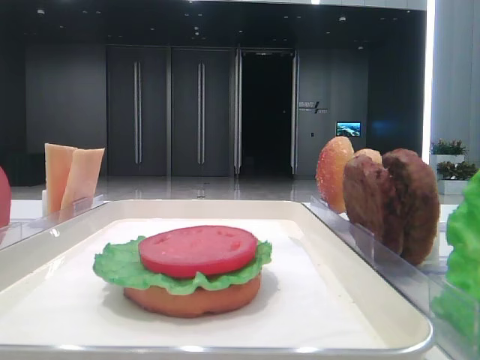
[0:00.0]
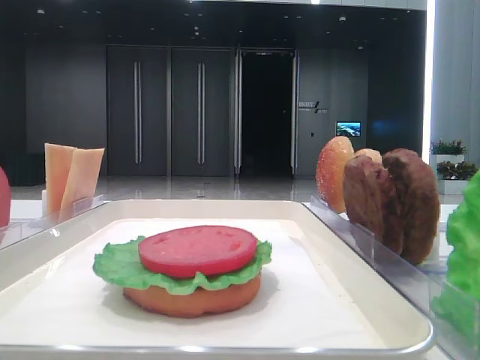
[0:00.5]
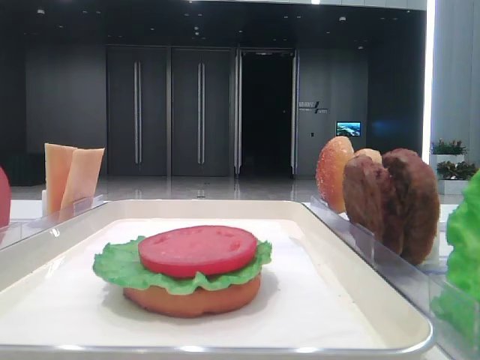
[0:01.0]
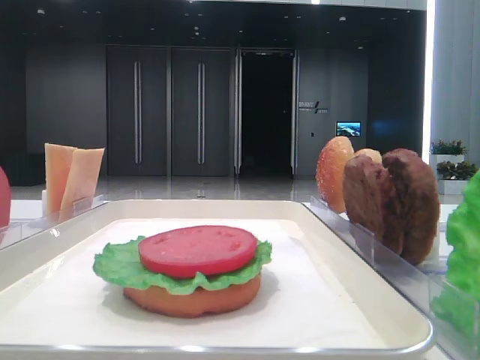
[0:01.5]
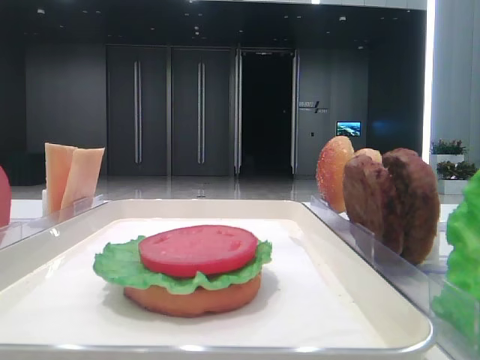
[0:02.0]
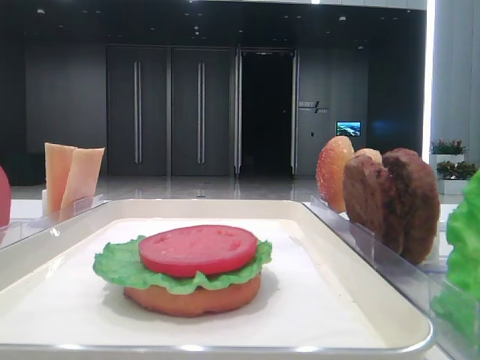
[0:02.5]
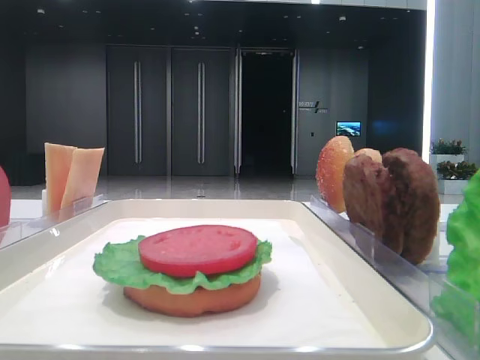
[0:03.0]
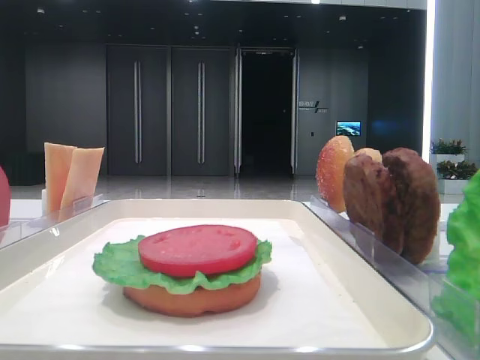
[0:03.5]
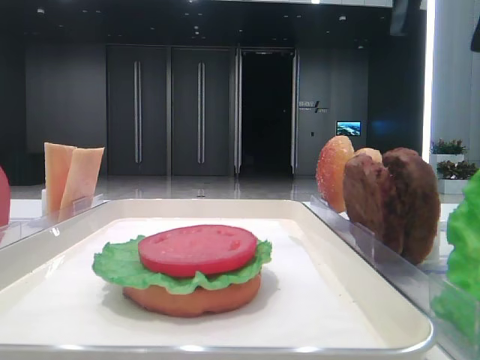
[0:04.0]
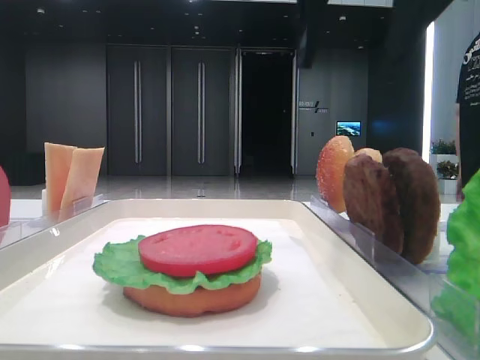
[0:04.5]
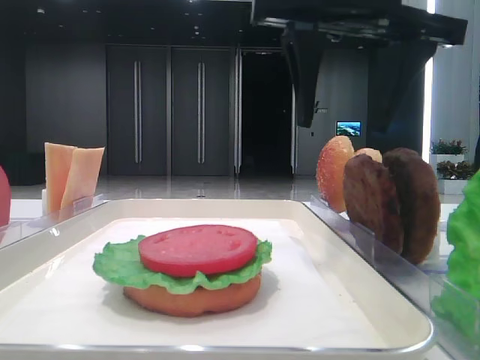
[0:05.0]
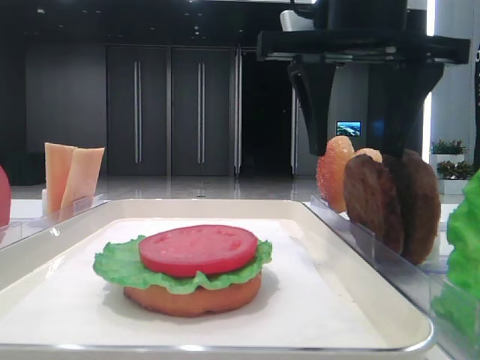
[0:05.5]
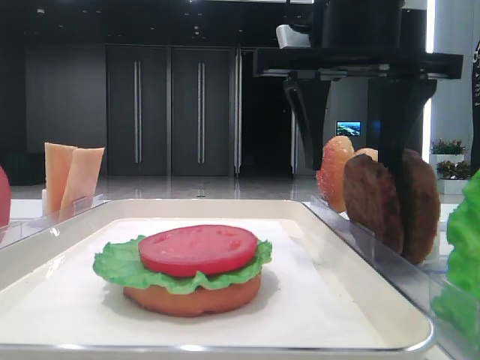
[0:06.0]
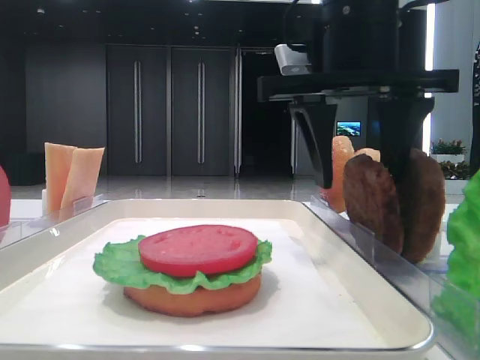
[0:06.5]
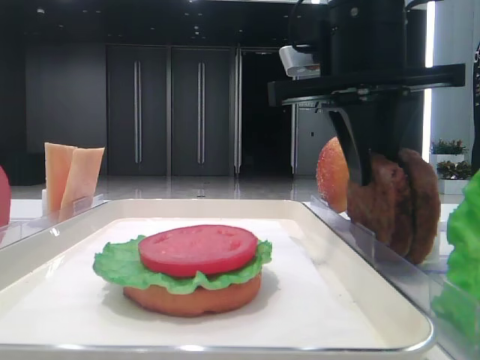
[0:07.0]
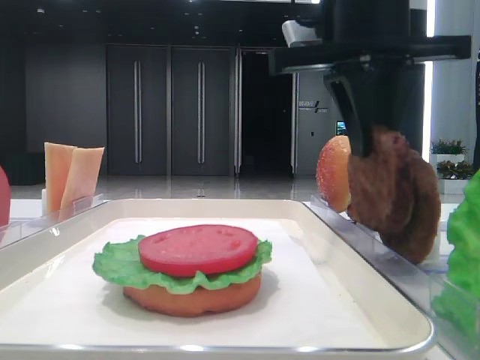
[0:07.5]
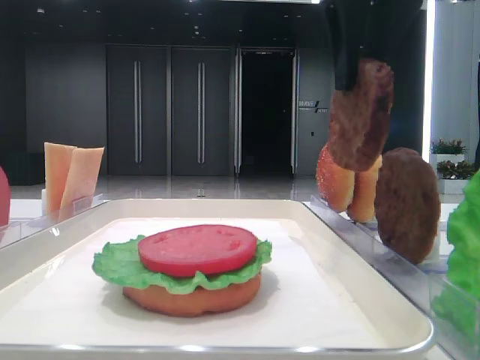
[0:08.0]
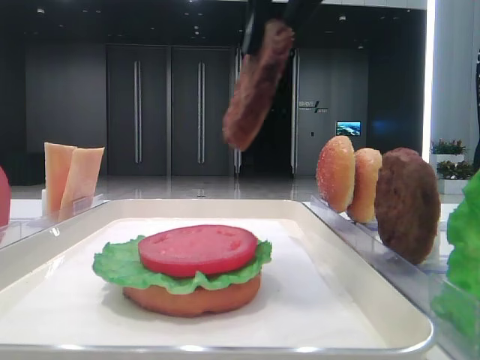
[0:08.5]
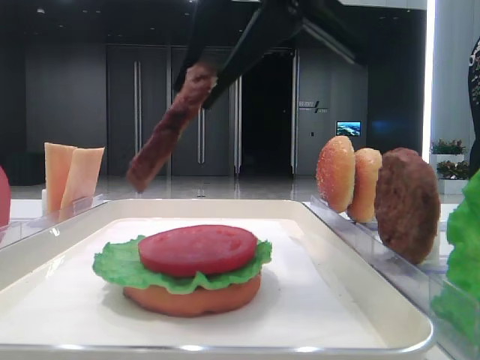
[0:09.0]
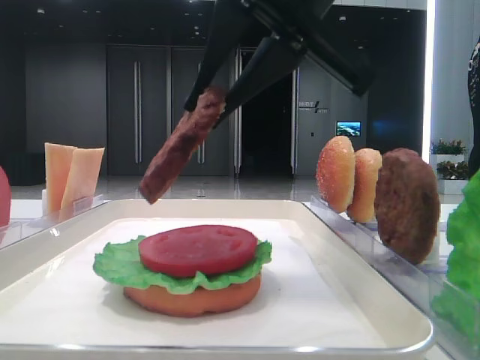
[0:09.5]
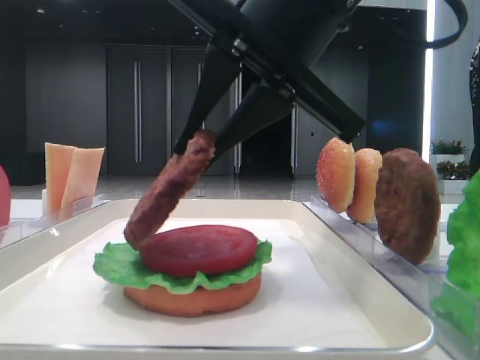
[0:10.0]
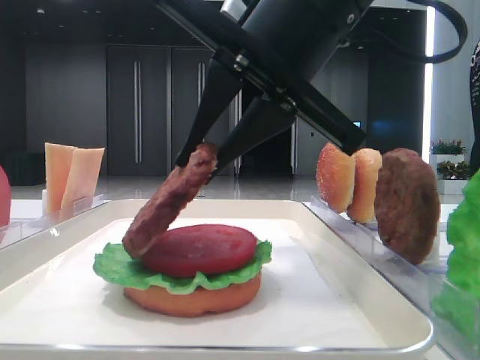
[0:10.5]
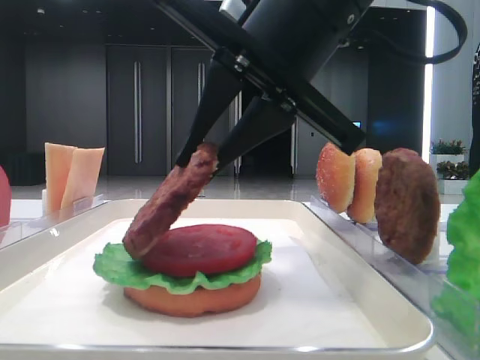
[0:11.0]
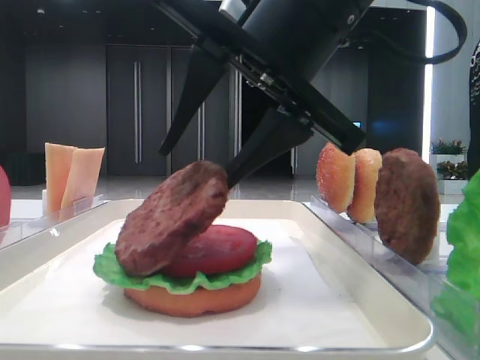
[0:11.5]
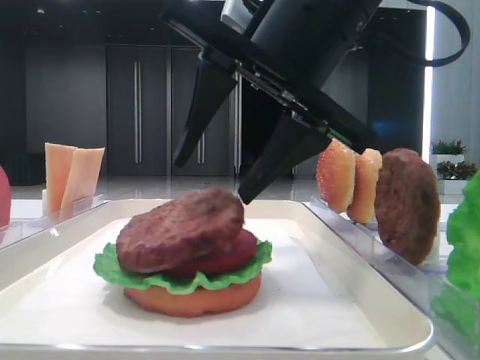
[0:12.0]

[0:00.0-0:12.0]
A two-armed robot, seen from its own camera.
Step, 0:00.0 to 0:07.0: Grab the patty with the right hand.
Step, 0:07.5 to 0:11.5: Place the patty on the tomato slice with the right hand.
0:02.0 to 0:04.0: The right gripper moves to the left and forward, approximately 15 cm.
0:04.0 to 0:06.0: The right gripper goes some 15 cm downward, to the left and forward.
0:06.0 to 0:08.0: The right gripper is displaced upward by some 5 cm, and closes its fingers.
0:08.0 to 0:10.0: The right gripper heads downward, covering about 10 cm.
0:10.0 to 0:12.0: The right gripper opens its fingers.

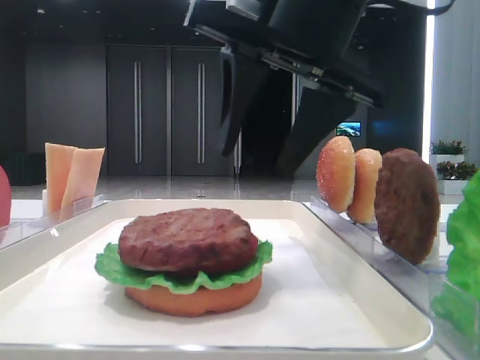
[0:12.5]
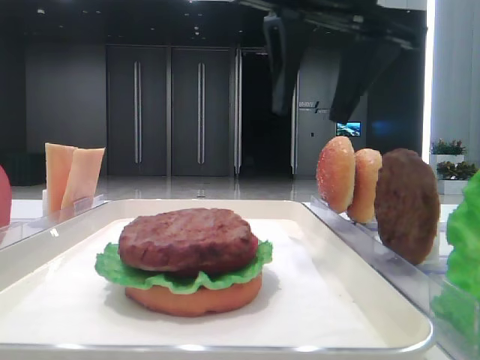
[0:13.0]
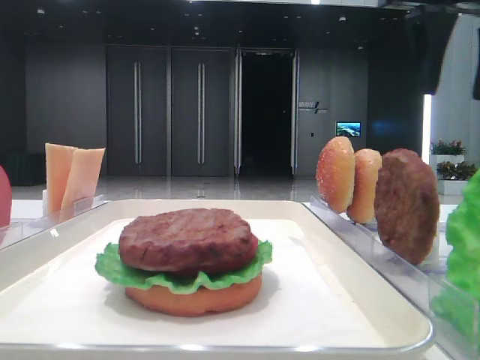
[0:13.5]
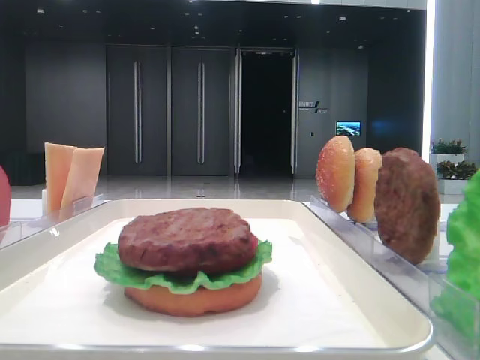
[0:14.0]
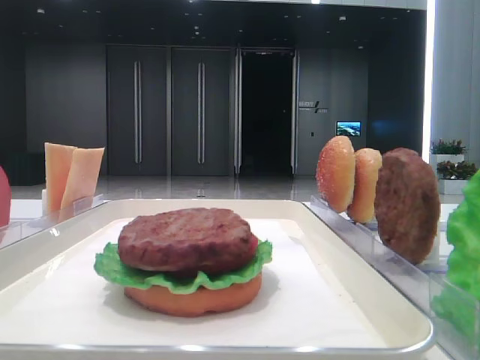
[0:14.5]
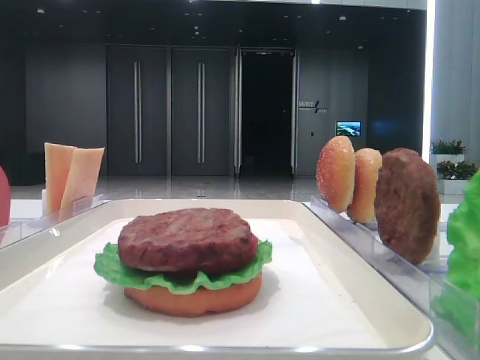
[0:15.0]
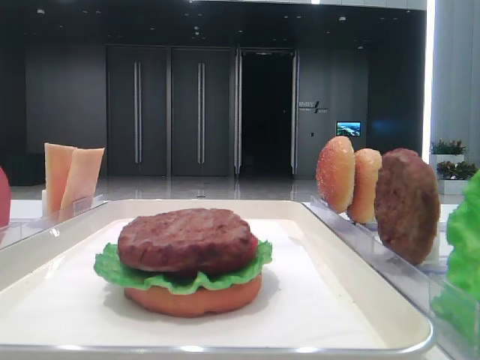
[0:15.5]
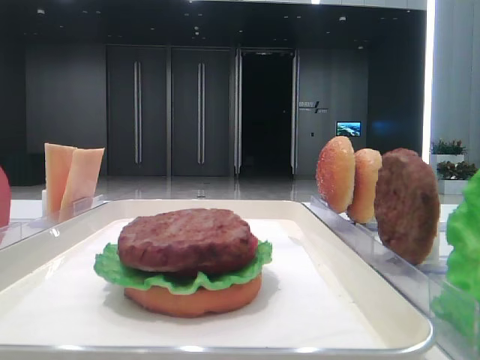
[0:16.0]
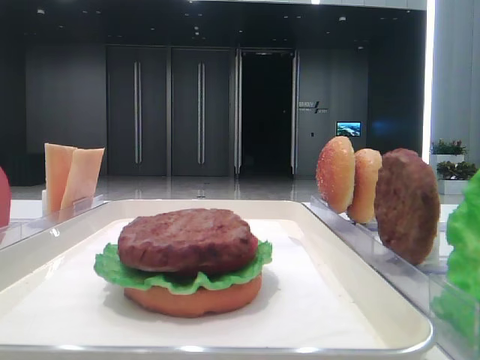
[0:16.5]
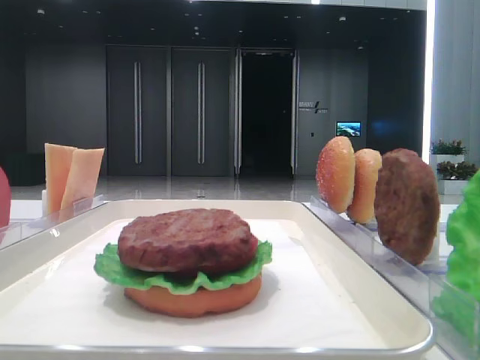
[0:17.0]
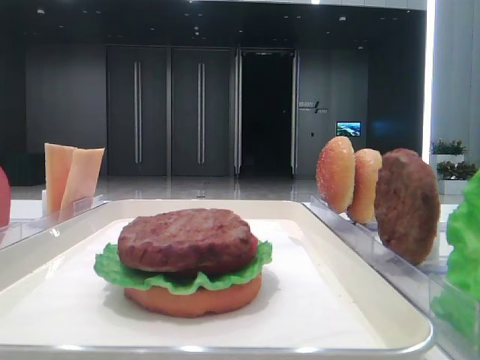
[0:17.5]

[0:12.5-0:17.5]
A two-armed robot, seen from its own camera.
0:12.5 to 0:15.0: The right gripper goes some 25 cm to the right.

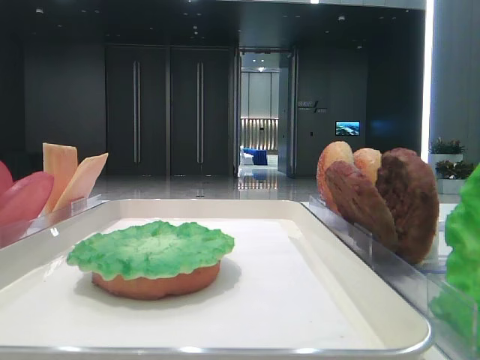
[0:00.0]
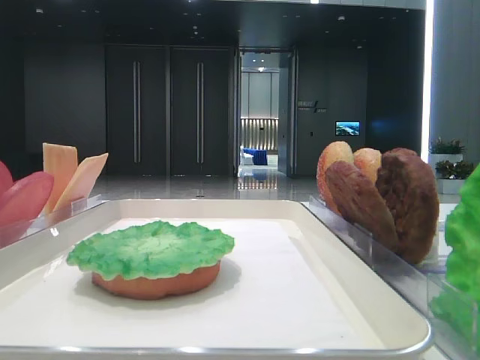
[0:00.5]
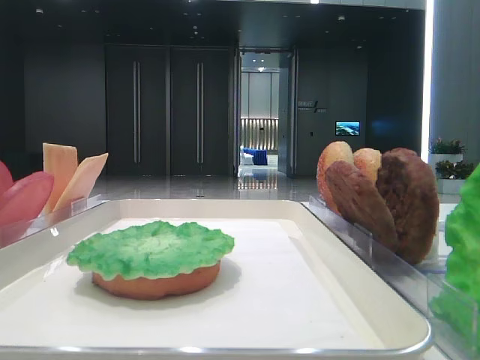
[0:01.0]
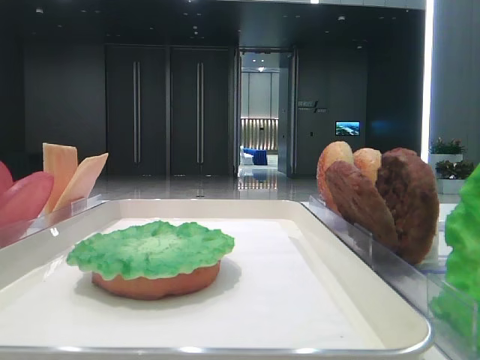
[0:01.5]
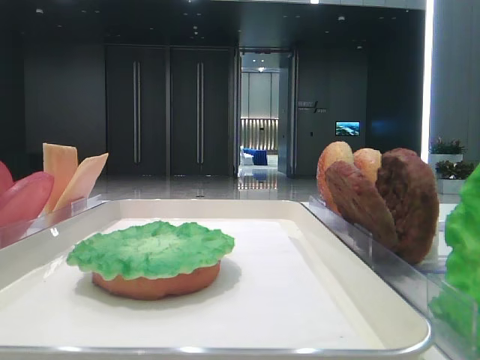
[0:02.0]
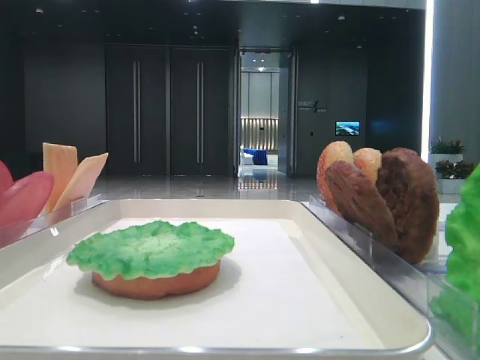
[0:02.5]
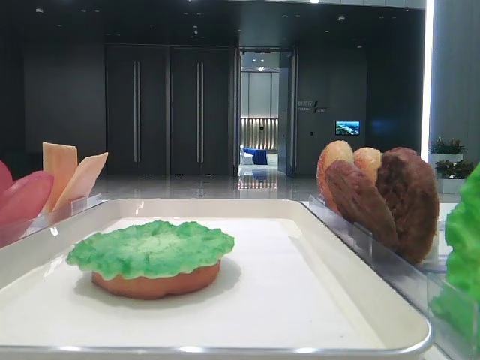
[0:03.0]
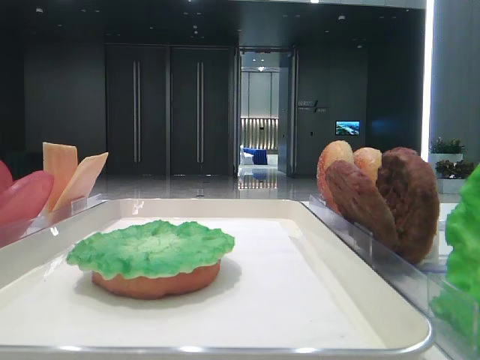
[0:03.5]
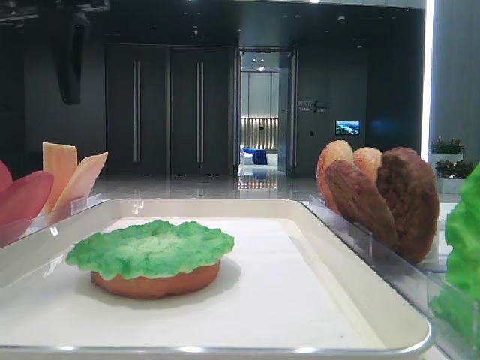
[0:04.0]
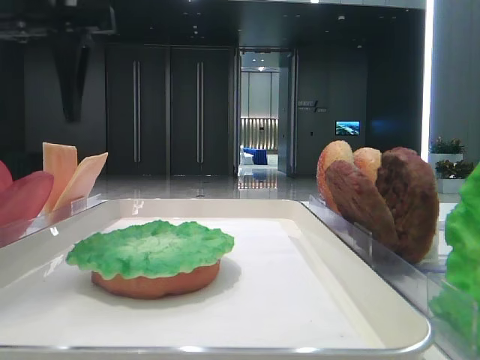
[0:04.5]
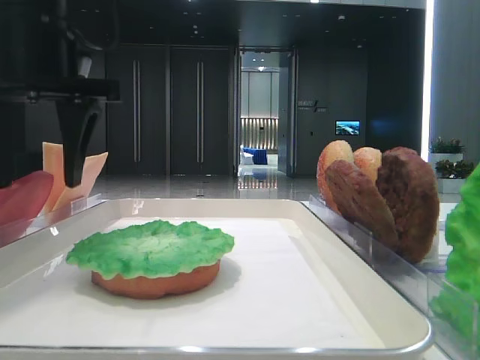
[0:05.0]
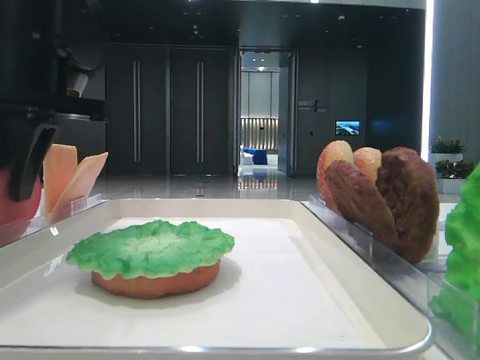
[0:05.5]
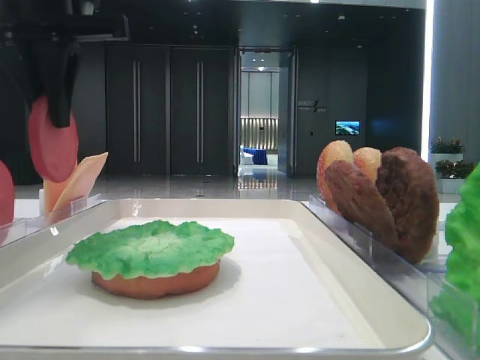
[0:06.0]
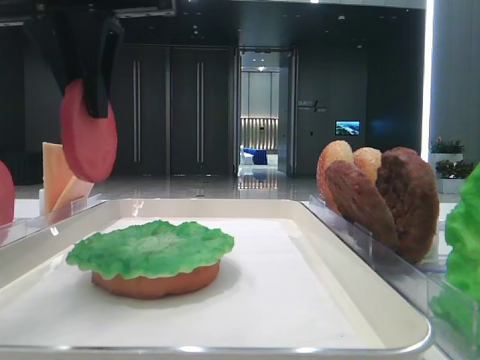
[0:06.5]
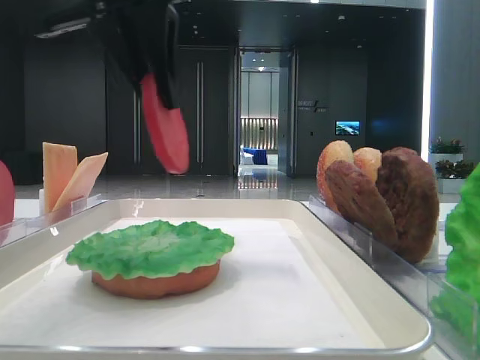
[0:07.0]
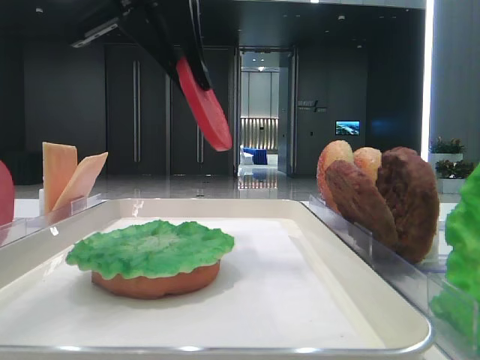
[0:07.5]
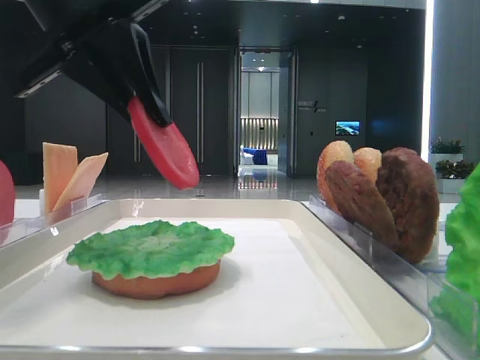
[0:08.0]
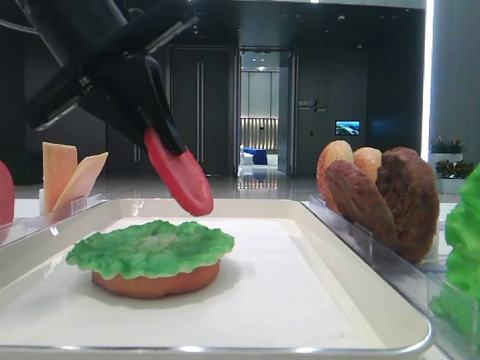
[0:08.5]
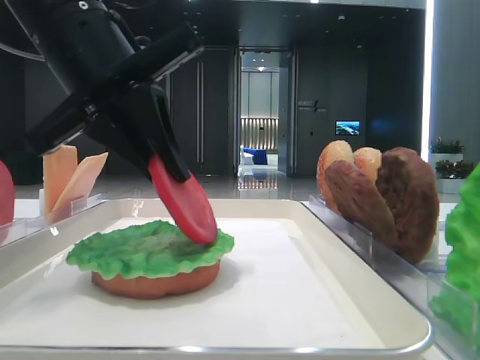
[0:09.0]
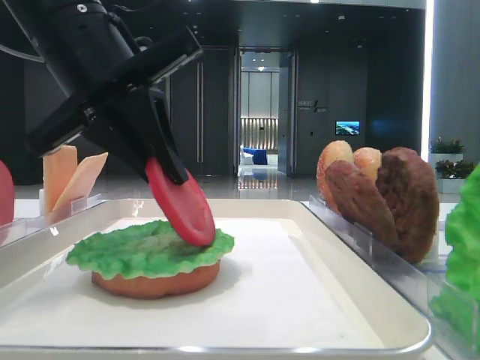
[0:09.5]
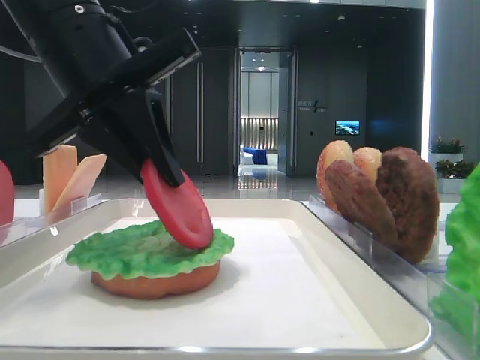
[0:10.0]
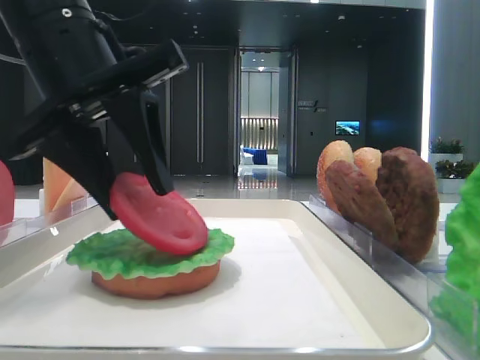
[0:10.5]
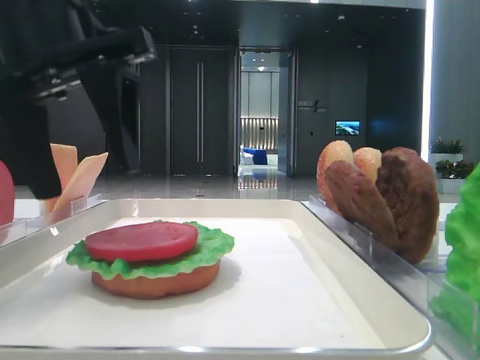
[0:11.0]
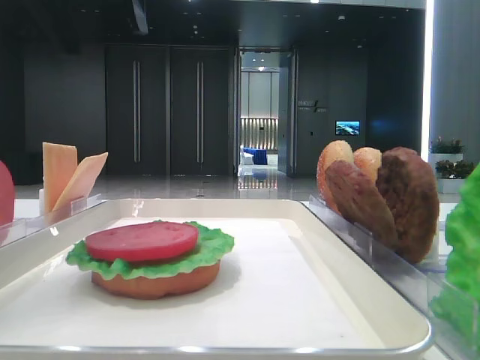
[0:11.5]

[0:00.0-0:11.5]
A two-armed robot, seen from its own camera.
Step, 0:00.0 to 0:05.5: Pick up the tomato slice with the left hand.
Step, 0:06.0 to 0:10.5: Place the tomato slice on the lettuce leaf with the left hand.
0:02.0 to 0:04.0: The left gripper shifts roughly 30 cm forward.
0:04.0 to 0:06.0: The left gripper closes up.
0:06.0 to 0:07.5: The left gripper goes some 10 cm to the right.
0:07.5 to 0:09.5: The left gripper moves downward, some 10 cm.
0:09.5 to 0:11.5: The left gripper goes about 15 cm upward, and opens.
